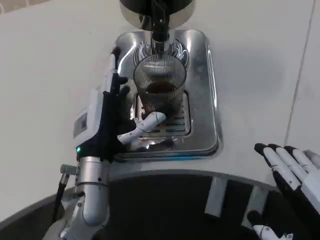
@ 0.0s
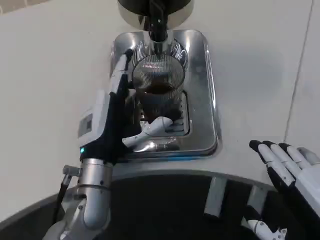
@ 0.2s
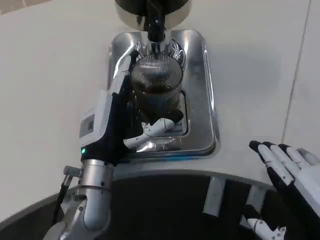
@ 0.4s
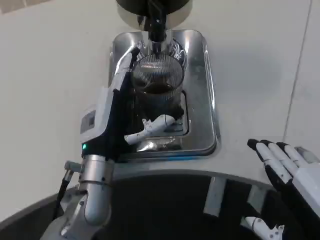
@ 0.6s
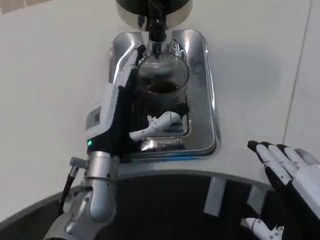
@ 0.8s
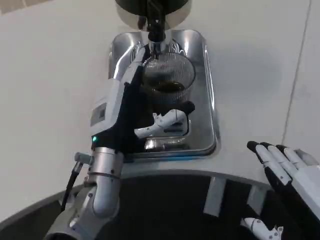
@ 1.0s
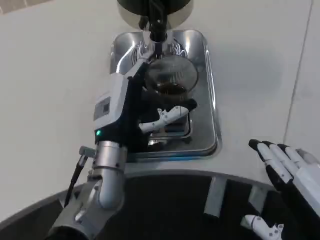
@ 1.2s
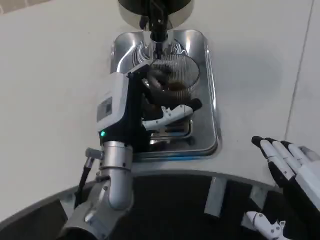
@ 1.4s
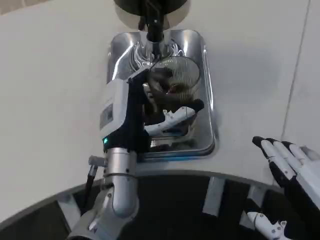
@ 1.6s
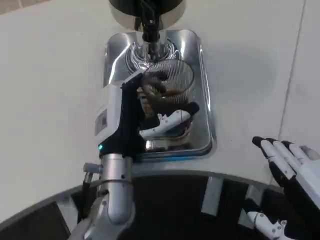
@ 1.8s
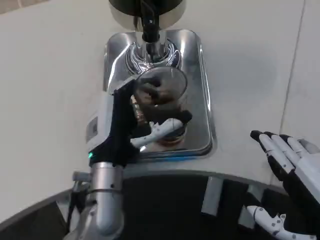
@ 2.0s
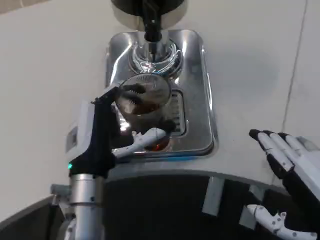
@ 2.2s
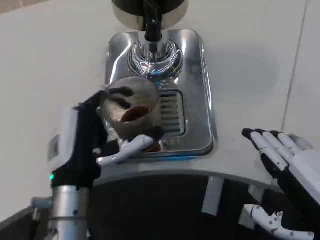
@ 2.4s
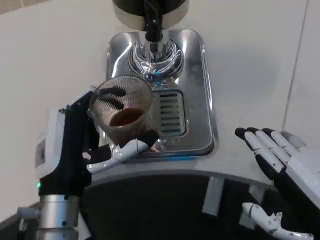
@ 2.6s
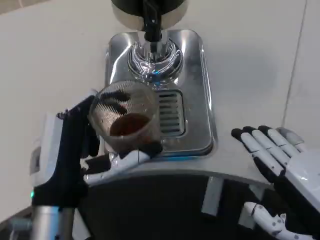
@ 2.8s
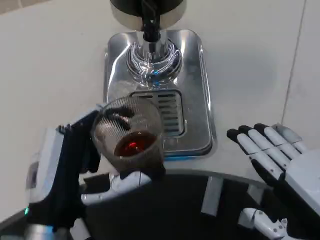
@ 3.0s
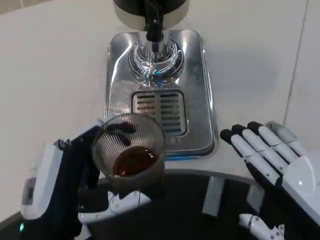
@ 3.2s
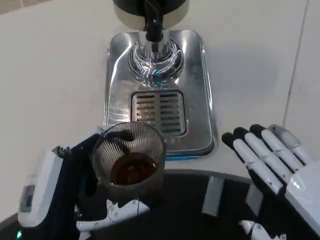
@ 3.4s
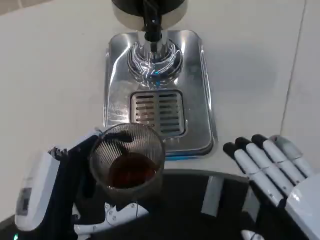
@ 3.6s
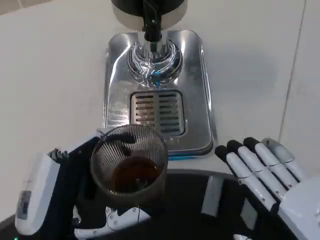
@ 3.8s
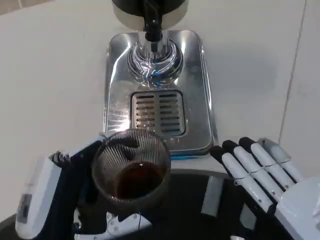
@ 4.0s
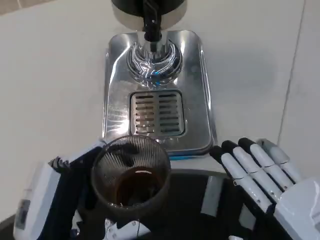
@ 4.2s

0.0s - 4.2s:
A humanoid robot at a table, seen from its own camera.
Task of the whole recording: Grasp the cup under the faucet to collect the drink, then remove the cup.
0.0s - 1.4s: There are only small adjustments of the hands.
1.4s - 2.8s: The left hand travels backward and to the left by about 15 cm.
2.8s - 4.2s: The left hand moves backward, about 5 cm.

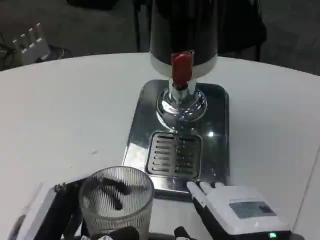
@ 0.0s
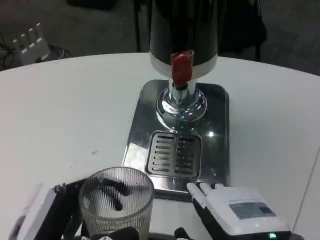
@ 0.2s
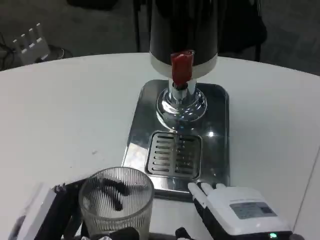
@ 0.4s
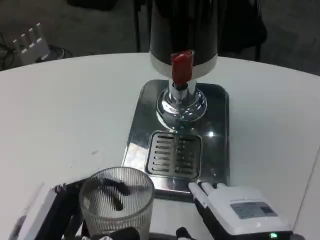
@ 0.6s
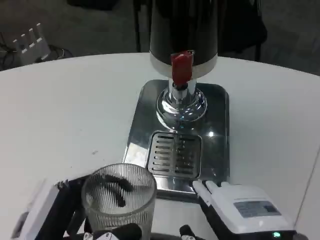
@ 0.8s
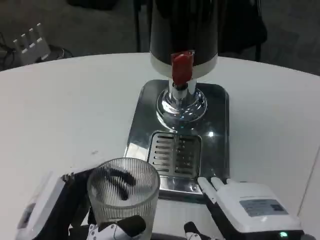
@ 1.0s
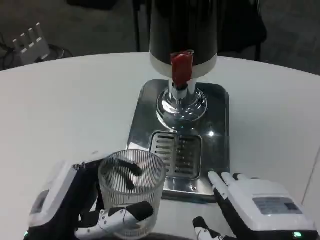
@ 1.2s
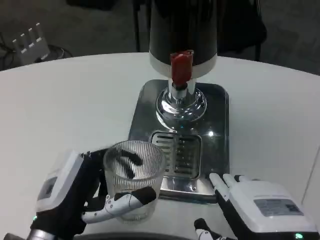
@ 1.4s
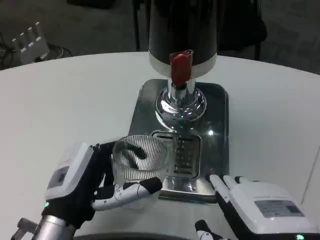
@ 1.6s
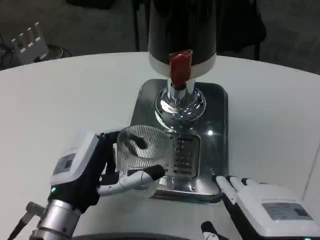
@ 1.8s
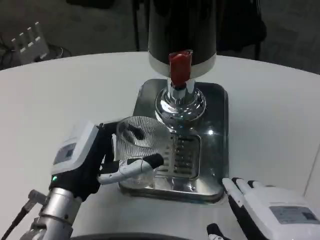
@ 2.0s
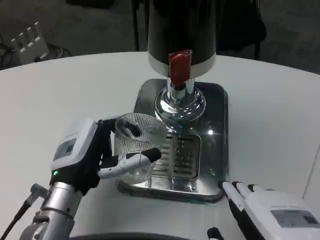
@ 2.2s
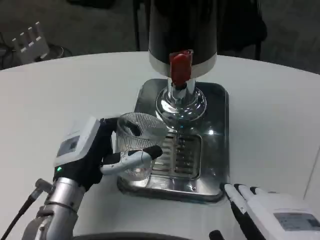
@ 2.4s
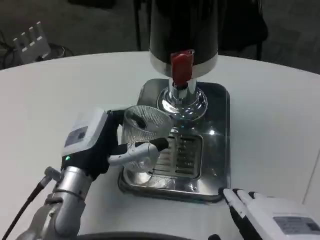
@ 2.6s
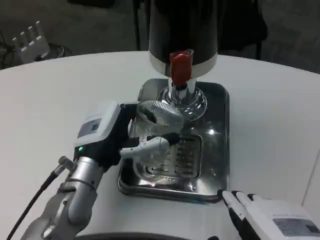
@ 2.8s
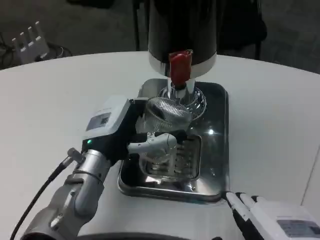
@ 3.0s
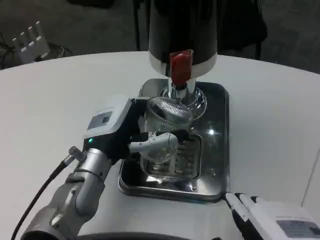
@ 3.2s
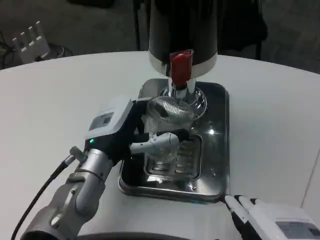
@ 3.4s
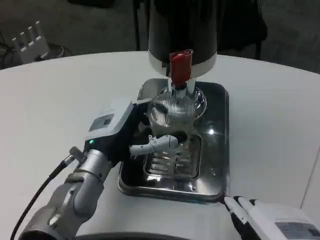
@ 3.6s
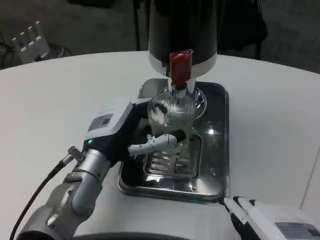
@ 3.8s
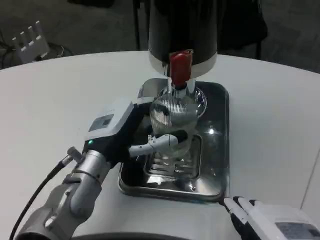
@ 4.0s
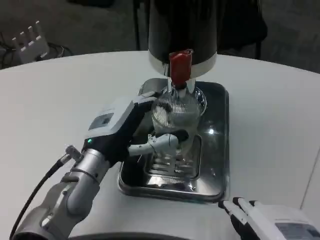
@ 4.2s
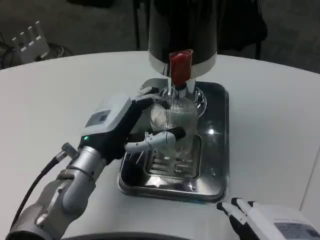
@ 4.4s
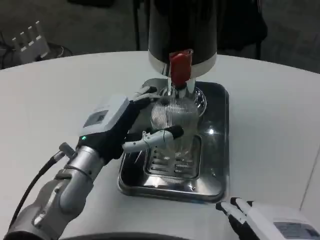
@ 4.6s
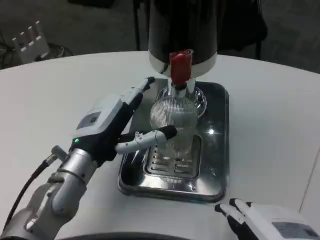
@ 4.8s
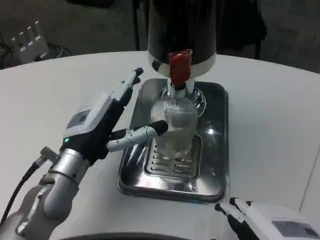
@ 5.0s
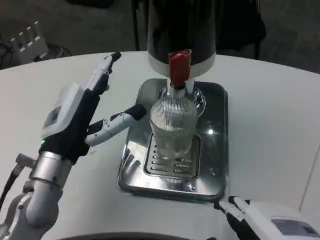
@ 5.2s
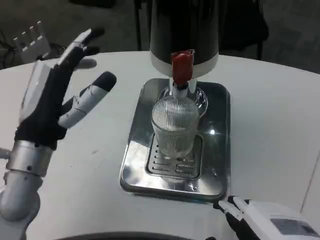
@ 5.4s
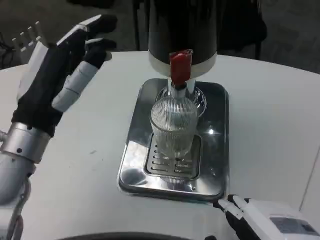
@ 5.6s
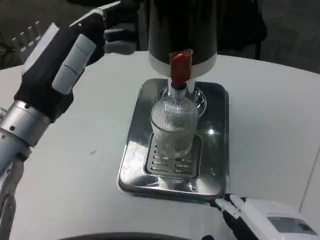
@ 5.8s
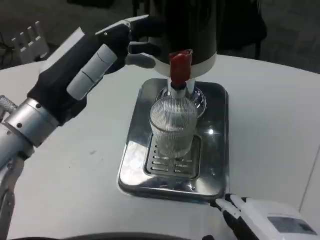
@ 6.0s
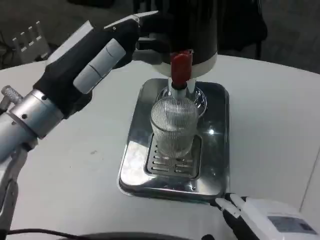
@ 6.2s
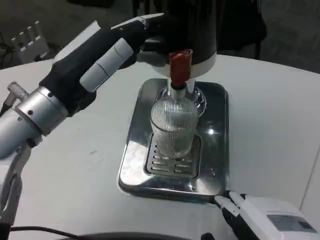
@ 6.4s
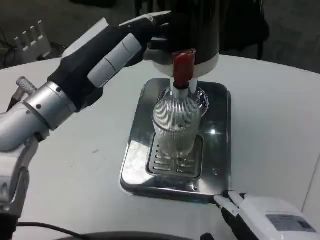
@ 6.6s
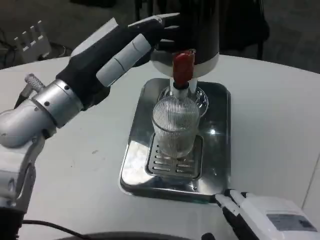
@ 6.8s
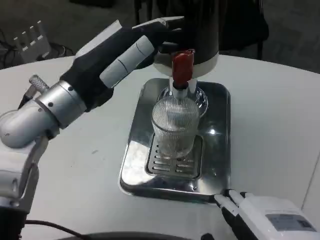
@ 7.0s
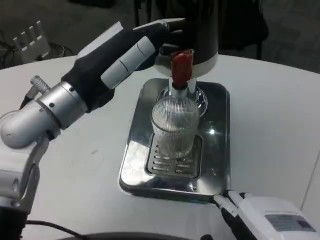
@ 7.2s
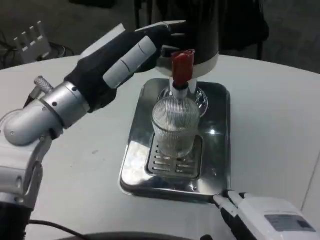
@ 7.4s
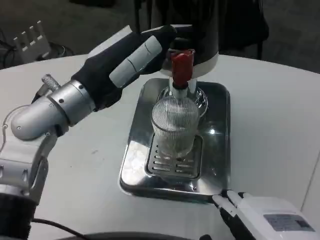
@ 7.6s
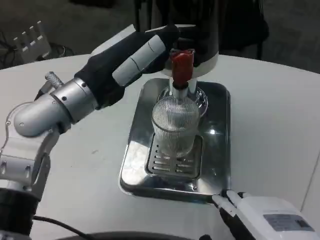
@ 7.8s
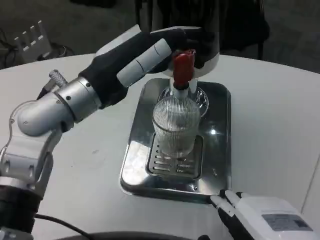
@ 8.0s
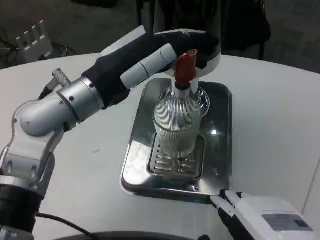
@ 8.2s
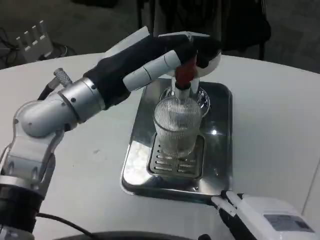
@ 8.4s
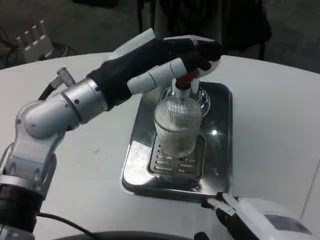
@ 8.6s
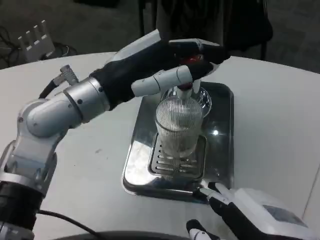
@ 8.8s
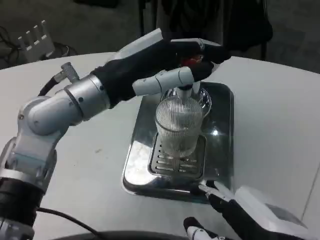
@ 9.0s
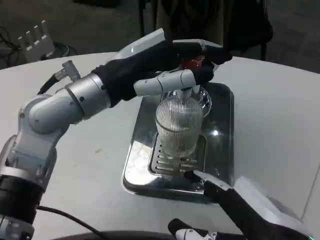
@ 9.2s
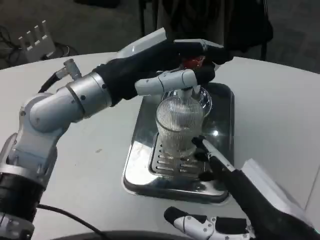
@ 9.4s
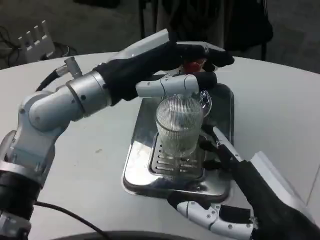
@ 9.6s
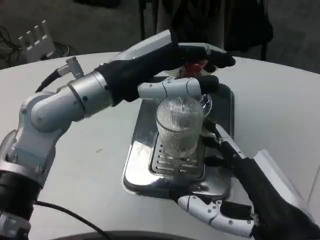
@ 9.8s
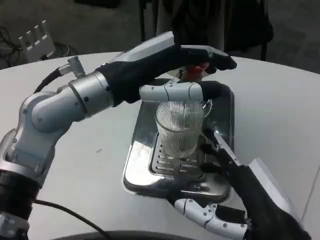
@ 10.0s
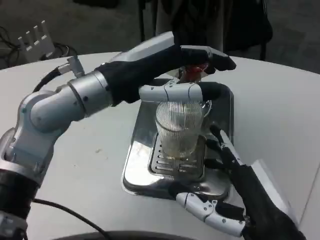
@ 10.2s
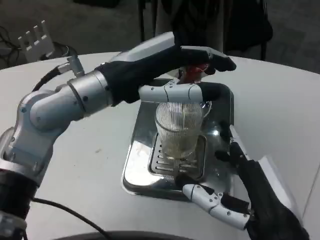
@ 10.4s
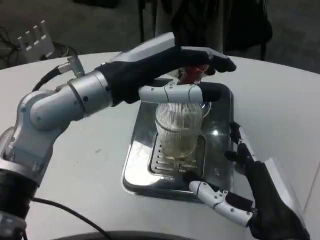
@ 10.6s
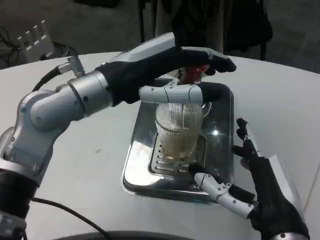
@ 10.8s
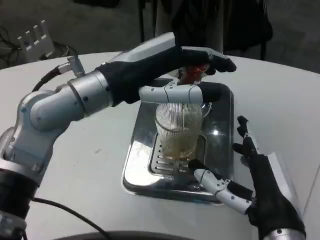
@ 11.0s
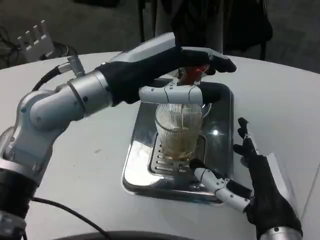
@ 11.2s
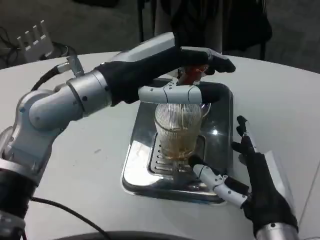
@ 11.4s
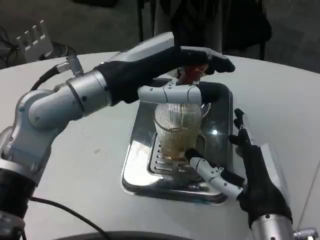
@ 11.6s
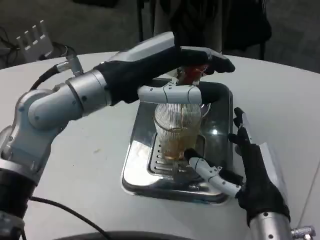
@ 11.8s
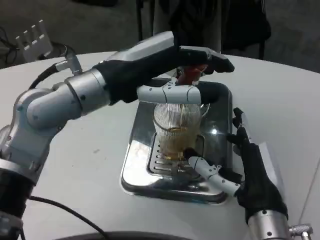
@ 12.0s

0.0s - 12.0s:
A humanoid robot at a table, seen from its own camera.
Task of the whole recording: Grasp the cup under the faucet to collect the drink, then remove the cup.
0.0s - 1.6s: The left hand goes roughly 10 cm forward.
1.6s - 3.0s: The left hand goes roughly 10 cm forward.
3.0s - 4.4s: There are only small adjustments of the hands.
4.4s - 6.0s: The left hand travels upward and to the left by some 10 cm.
6.0s - 7.6s: The left hand changes place by approximately 5 cm.
9.0s - 10.4s: The right hand ends up roughly 5 cm from where it was.
10.4s - 12.0s: The right hand is displaced forward by approximately 5 cm.

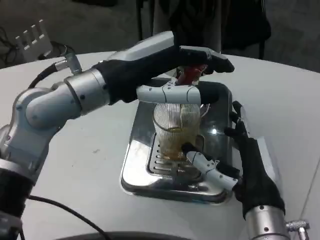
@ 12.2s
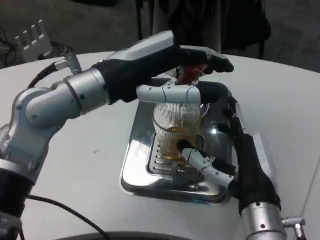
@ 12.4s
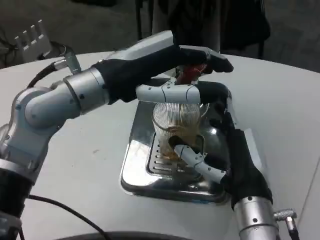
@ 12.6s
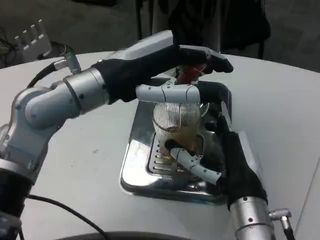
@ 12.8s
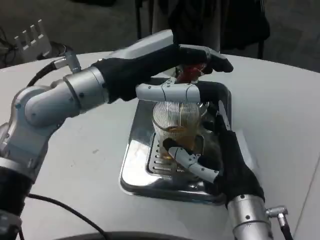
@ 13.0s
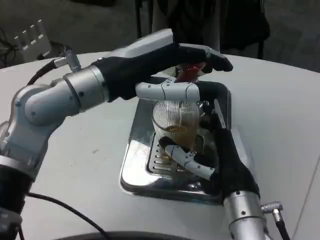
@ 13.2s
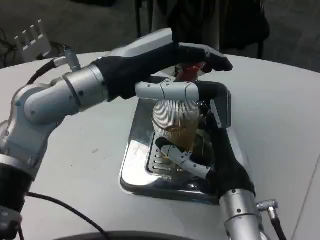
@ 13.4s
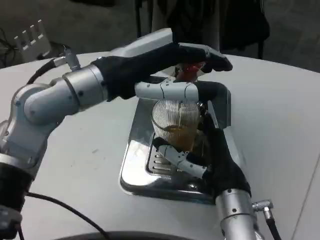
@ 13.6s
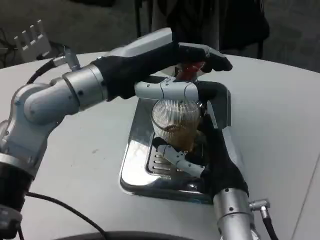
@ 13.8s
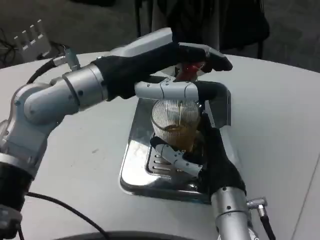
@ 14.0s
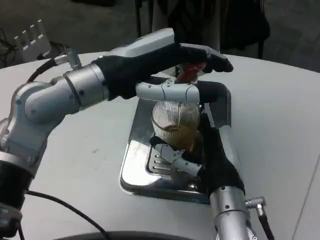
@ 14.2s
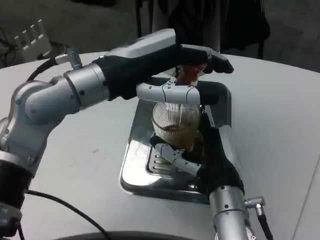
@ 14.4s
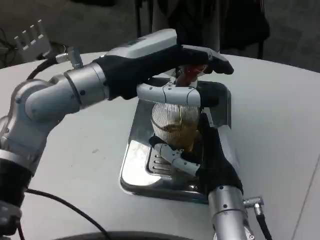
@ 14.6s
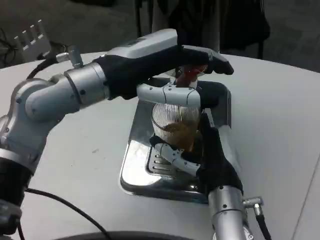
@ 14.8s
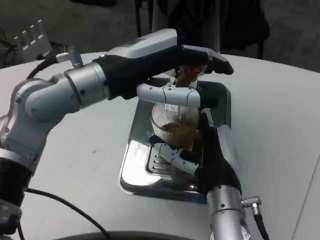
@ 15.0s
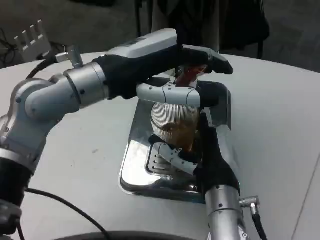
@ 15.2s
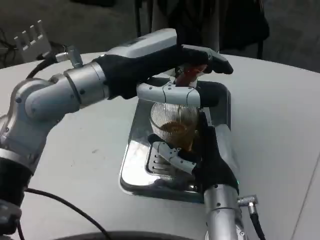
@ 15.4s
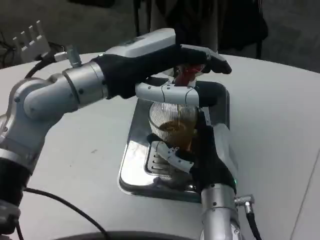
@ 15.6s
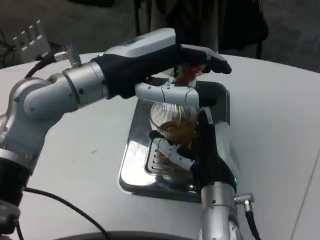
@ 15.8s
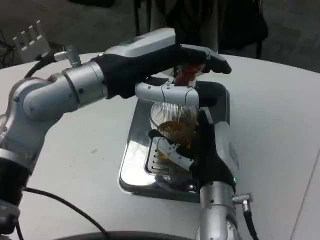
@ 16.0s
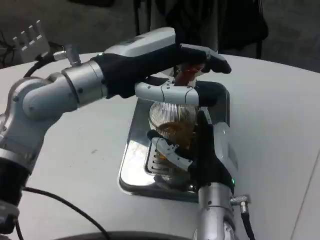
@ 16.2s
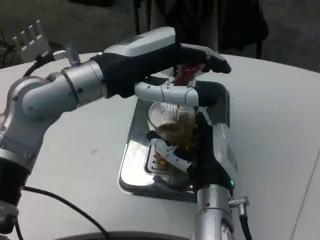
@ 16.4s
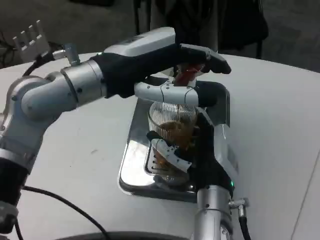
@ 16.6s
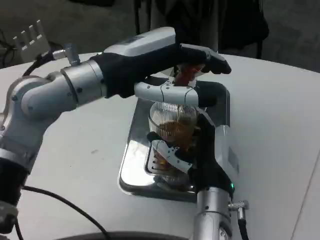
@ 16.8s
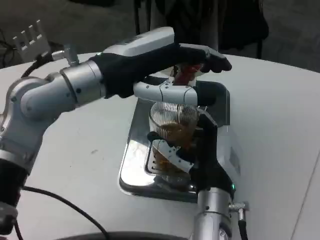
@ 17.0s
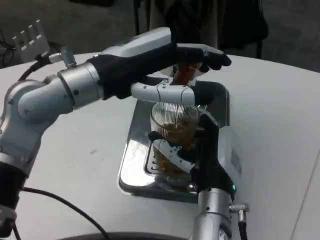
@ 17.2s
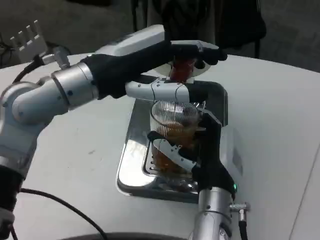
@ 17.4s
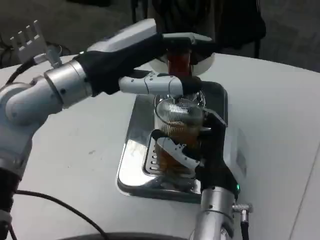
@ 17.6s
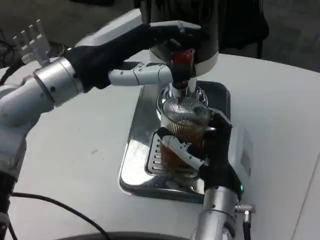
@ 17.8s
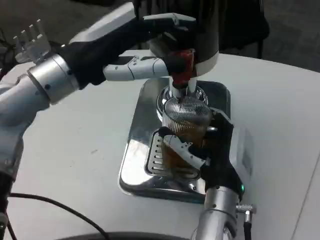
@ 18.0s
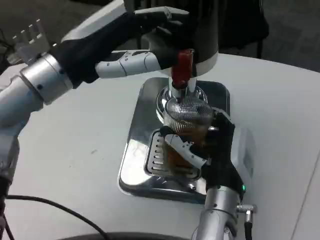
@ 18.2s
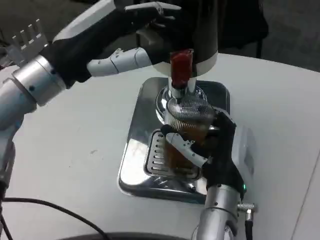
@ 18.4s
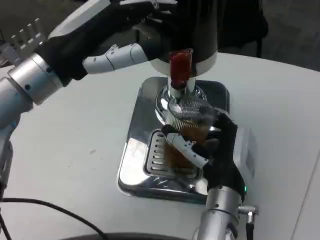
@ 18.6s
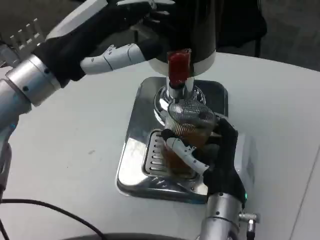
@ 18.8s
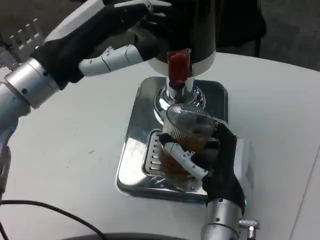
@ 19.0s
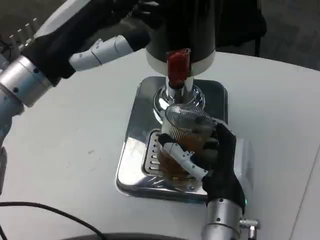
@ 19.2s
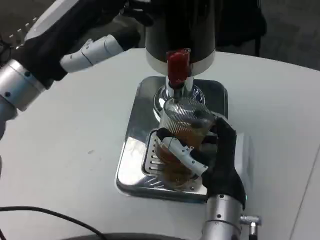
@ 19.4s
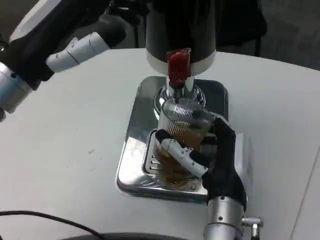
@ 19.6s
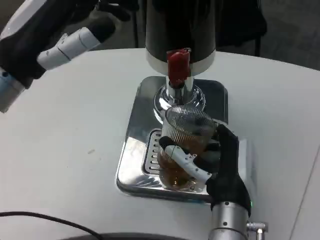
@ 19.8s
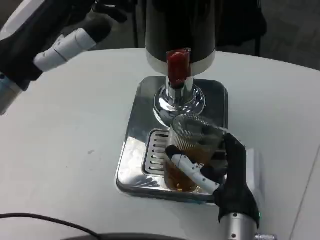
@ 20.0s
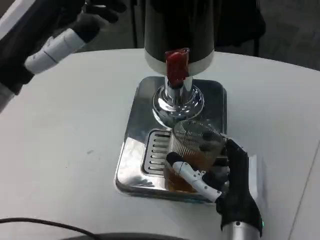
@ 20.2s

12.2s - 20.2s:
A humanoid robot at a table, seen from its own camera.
Task of the whole recording: Grasp the cup under the faucet to collect the drink, then remove the cup.
13.8s - 17.0s: The hands move only a little.
18.6s - 20.2s: The left hand moves about 5 cm. Meanwhile the right hand shifts roughly 5 cm backward.
